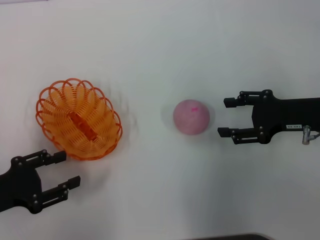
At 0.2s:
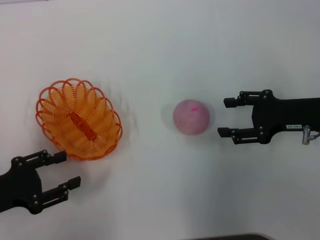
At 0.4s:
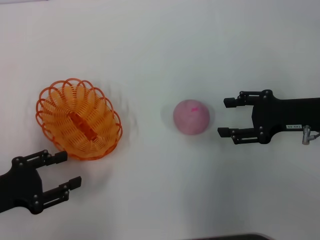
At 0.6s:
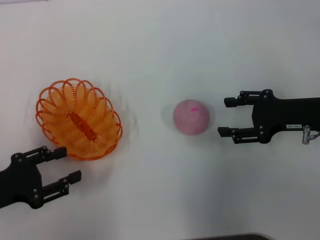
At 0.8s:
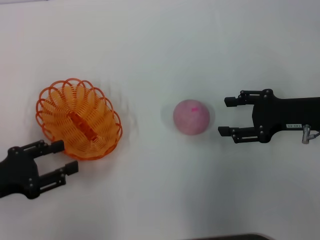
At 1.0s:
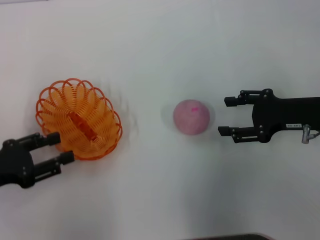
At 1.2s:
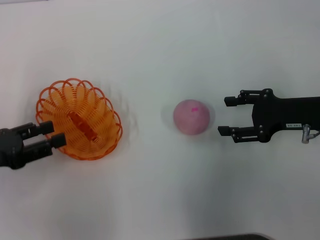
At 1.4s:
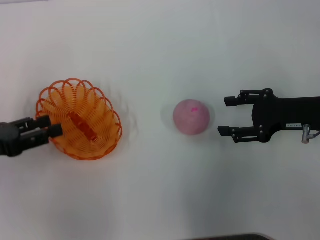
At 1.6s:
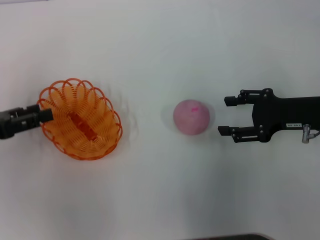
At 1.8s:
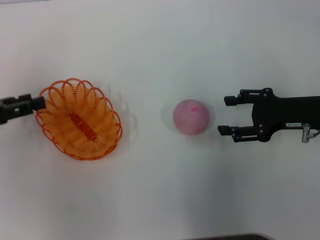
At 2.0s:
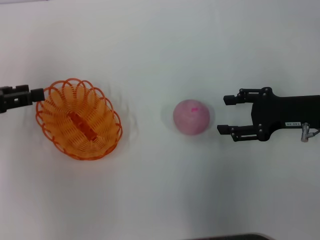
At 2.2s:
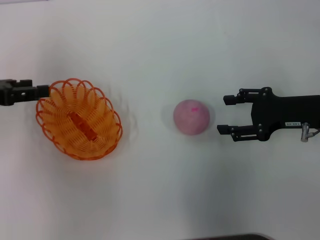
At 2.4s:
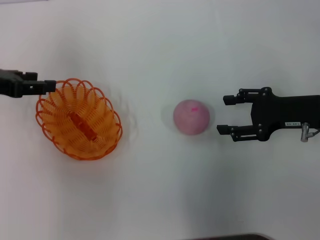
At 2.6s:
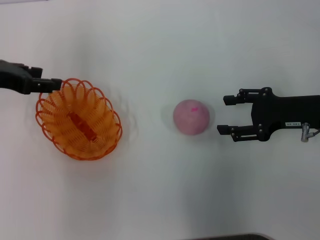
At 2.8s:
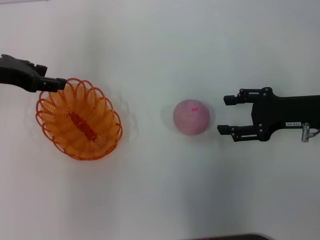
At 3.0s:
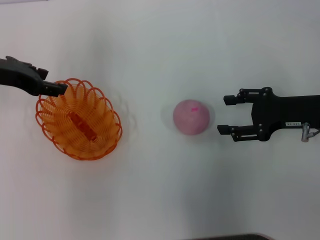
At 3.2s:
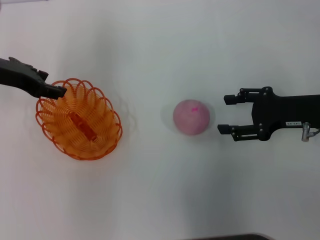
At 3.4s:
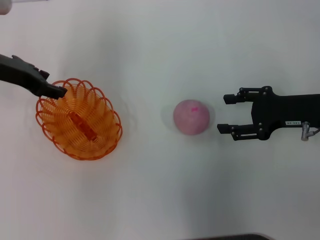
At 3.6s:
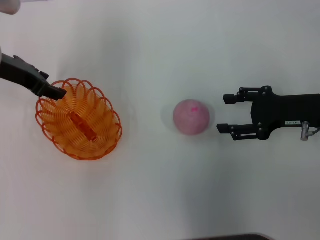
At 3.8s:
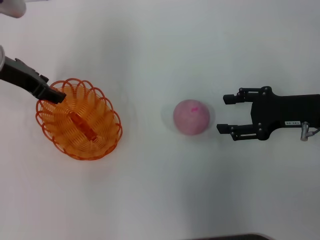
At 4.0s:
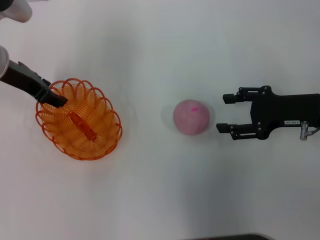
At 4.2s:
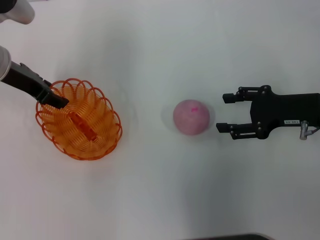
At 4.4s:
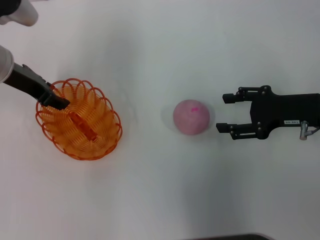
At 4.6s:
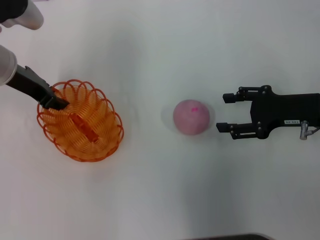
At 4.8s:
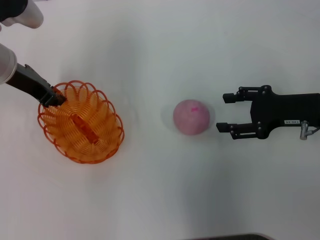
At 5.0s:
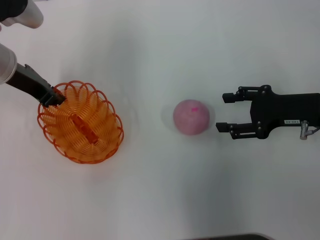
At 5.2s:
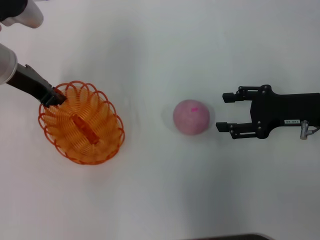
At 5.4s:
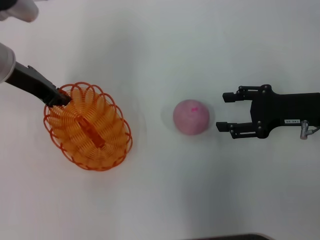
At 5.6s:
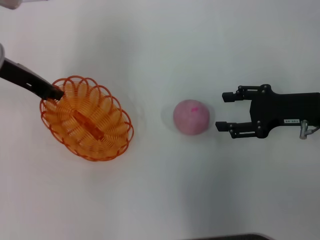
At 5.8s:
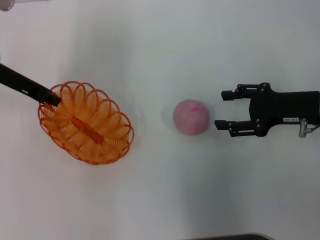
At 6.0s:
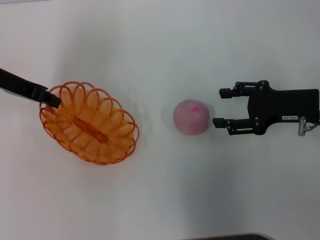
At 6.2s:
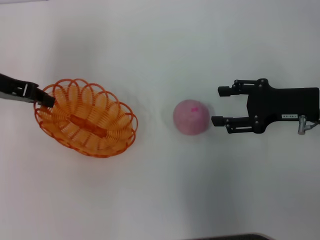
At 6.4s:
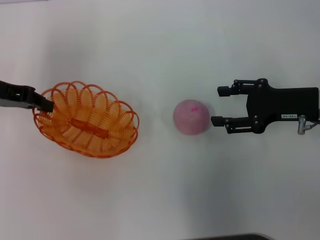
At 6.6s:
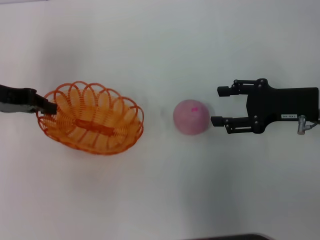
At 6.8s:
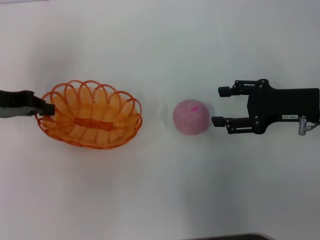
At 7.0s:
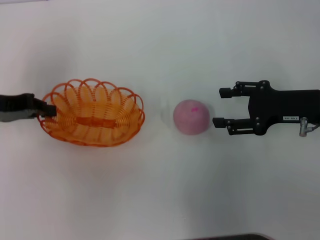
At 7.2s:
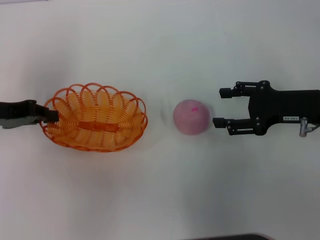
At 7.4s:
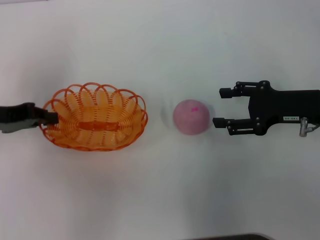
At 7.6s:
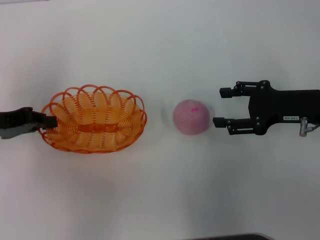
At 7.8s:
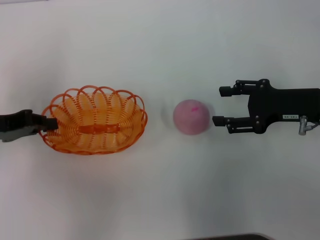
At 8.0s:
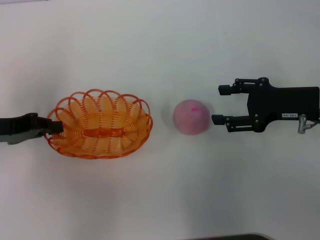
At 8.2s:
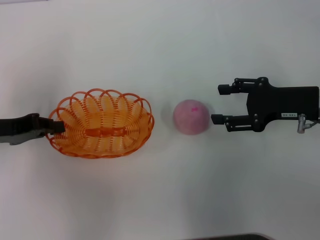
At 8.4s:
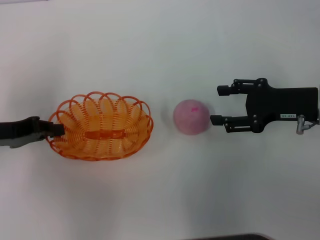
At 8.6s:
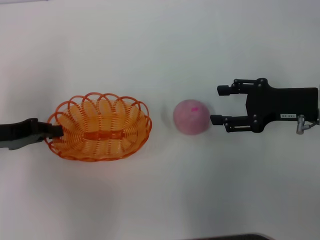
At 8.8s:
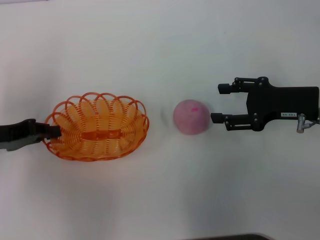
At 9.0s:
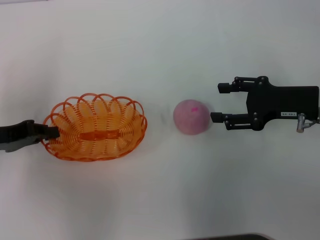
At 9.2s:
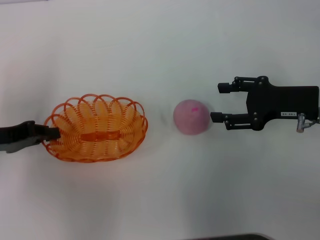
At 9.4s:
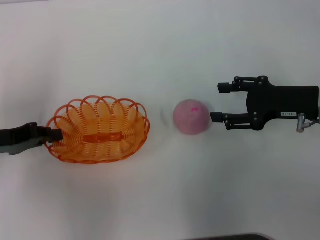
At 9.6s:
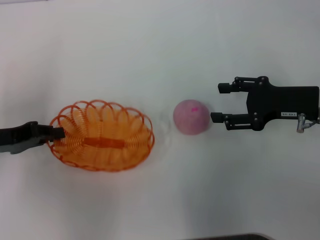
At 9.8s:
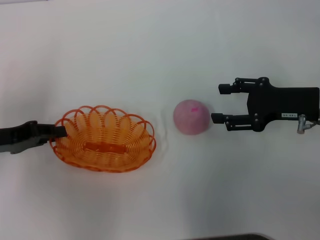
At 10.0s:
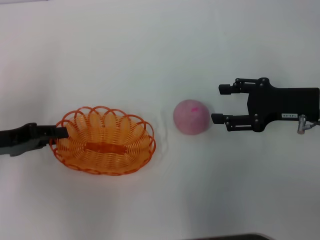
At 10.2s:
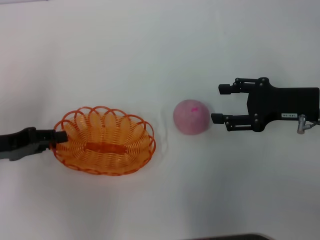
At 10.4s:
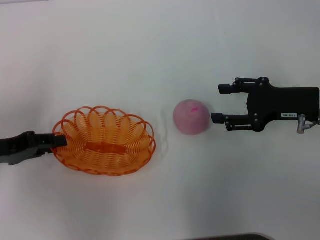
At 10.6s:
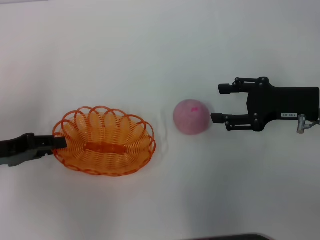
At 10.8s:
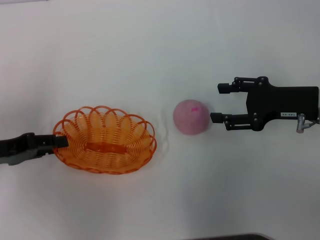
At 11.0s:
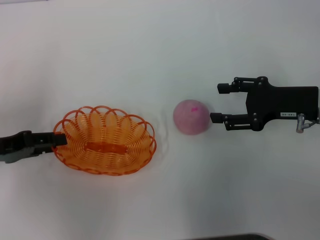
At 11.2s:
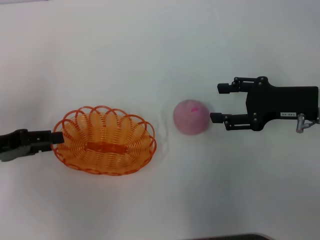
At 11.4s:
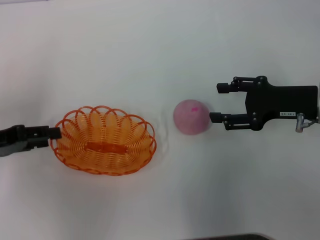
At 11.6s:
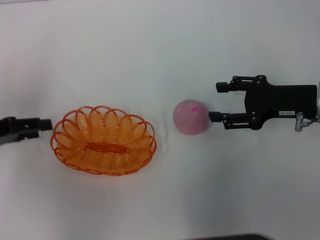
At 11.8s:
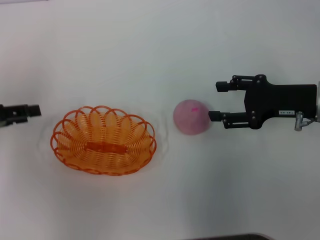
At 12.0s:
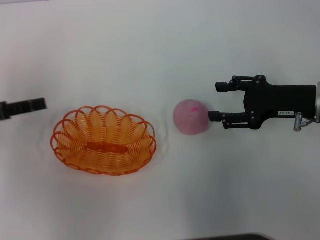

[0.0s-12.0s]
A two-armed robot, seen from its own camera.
Step, 0.0s to 6.0s: Pick up the basket with the left gripper.
0.0s to 1.6s: The left gripper travels forward by some 5 cm.
1.6s to 3.0s: The left gripper moves forward, to the right and upward, roughly 15 cm.
3.0s to 4.4s: The grippers make only small movements.
4.4s to 6.0s: The left gripper closes.
6.0s to 7.6s: The left gripper moves backward, about 10 cm.
7.6s to 9.0s: There are only small adjustments of the grippers.
9.0s to 10.4s: The left gripper opens its fingers.
10.4s to 12.0s: The left gripper opens up.

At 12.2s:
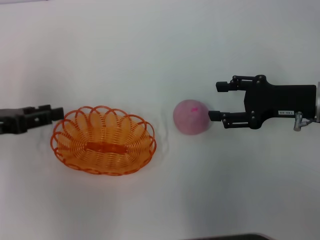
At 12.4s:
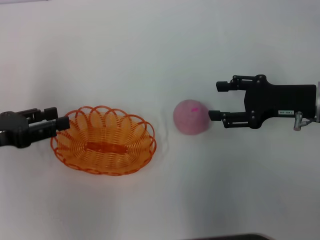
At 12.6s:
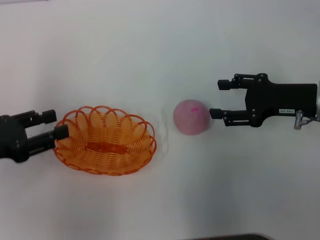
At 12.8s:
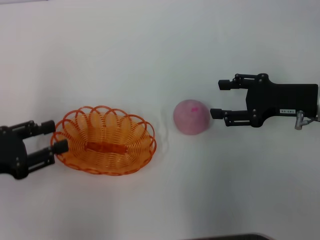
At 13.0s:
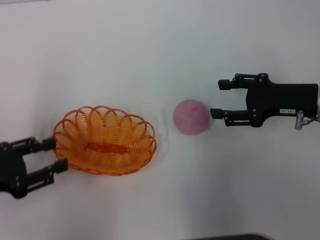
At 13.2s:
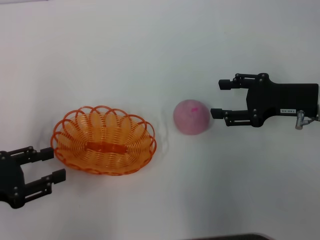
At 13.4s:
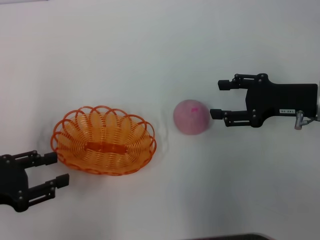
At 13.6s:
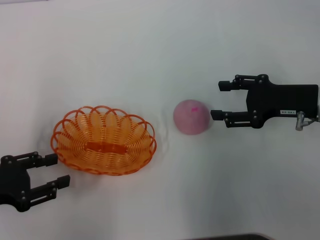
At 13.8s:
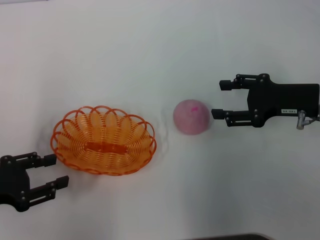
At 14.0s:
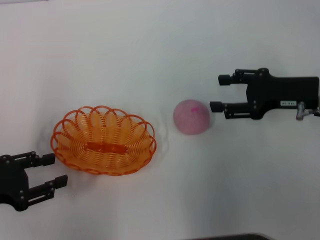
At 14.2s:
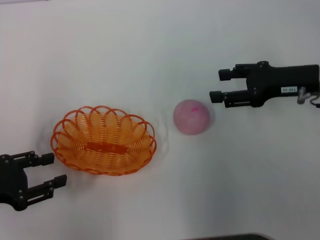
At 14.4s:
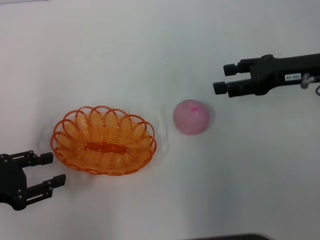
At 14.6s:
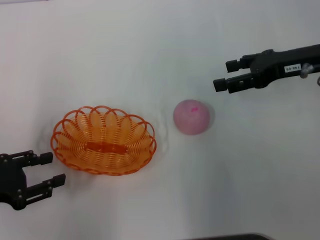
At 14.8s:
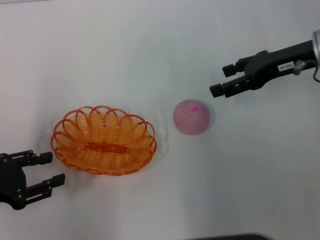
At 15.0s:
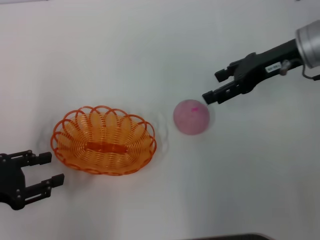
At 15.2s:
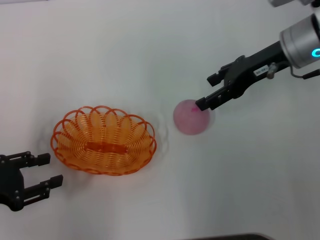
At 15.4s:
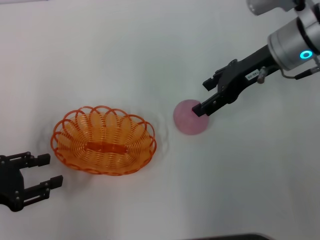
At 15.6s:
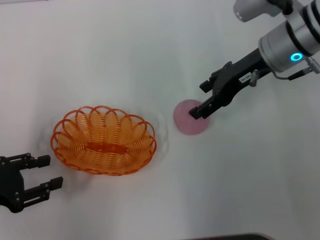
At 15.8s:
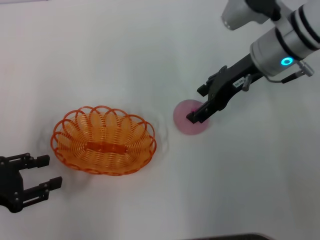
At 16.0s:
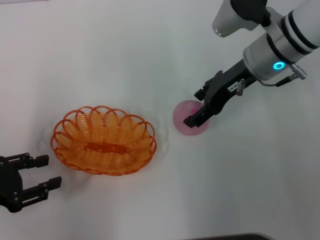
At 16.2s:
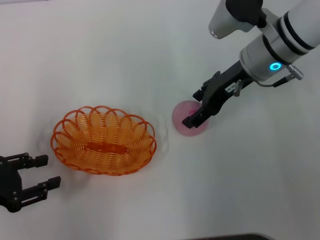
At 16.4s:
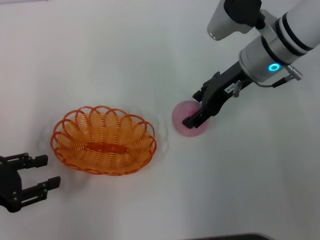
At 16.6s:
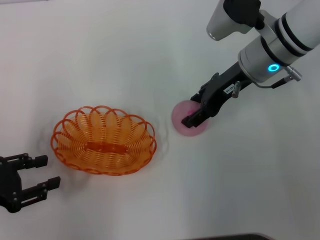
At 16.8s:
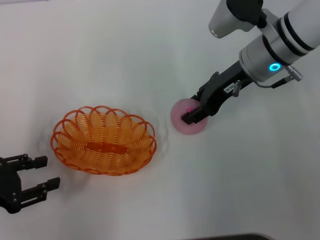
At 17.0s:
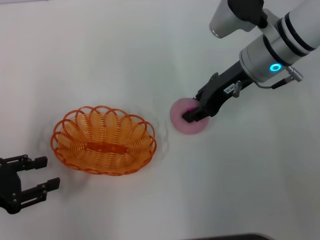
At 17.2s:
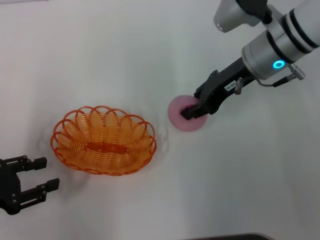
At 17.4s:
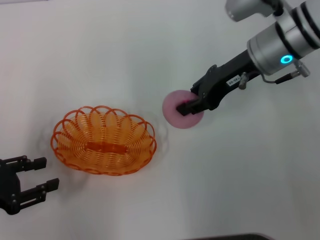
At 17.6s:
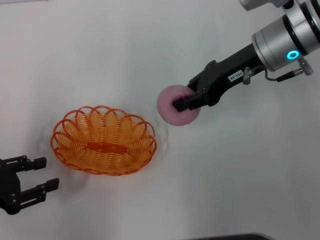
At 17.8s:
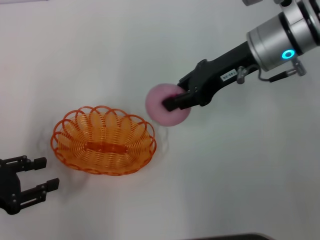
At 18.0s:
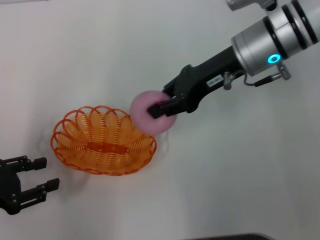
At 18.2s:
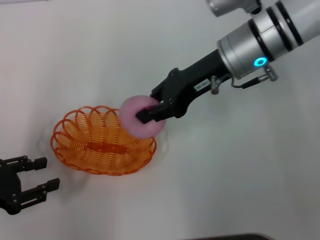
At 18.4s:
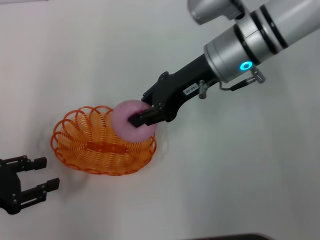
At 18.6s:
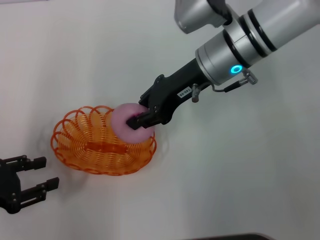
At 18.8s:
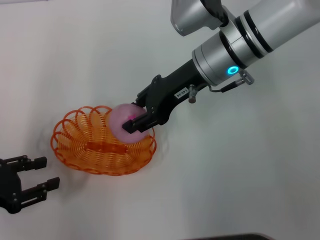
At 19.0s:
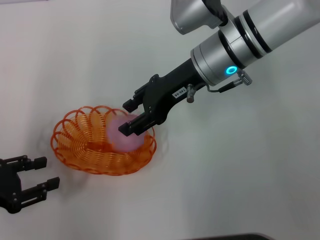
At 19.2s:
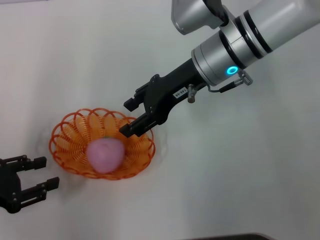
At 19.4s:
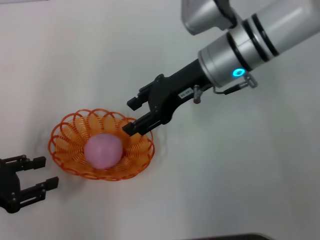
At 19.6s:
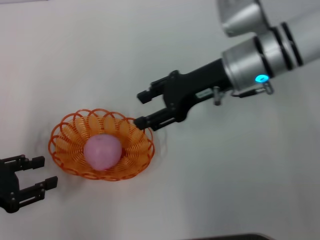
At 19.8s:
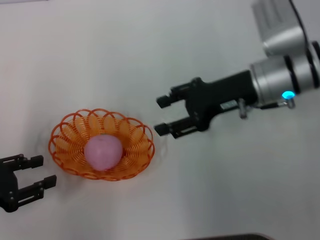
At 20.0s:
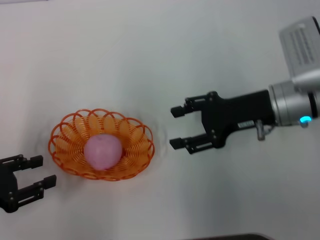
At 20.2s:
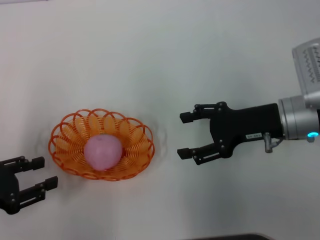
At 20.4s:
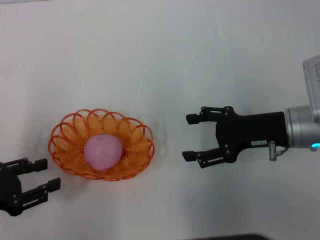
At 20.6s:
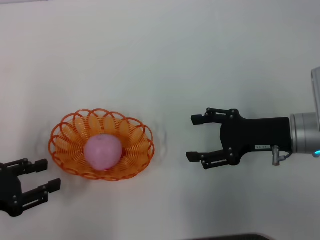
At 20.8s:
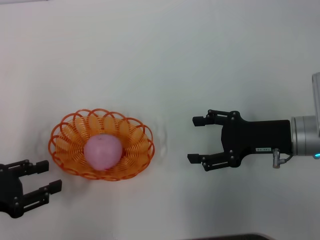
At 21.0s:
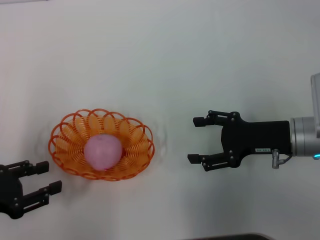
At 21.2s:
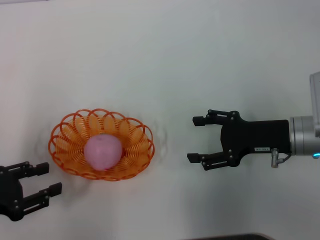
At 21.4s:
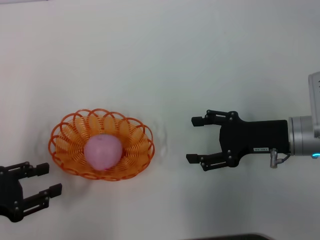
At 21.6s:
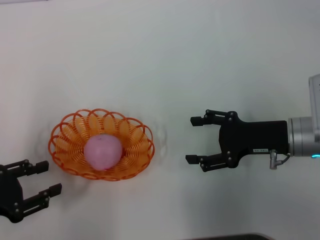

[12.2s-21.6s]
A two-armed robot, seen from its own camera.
Step, 13.2s to 17.6s: Pick up the peach with the right gripper.
Step, 18.0s to 19.6s: Place the peach into the basket with the right gripper.
12.2s to 13.8s: The left gripper shifts roughly 5 cm backward.
13.8s to 15.4s: The right gripper travels forward, to the left and upward by roughly 15 cm.
15.4s to 17.0s: The right gripper closes its fingers.
17.0s to 18.4s: The right gripper moves to the left, about 5 cm, and closes its fingers.
18.4s to 20.0s: The right gripper shifts roughly 10 cm to the right, downward and backward, and opens its fingers.
20.0s to 21.6s: The right gripper changes place by about 5 cm.
